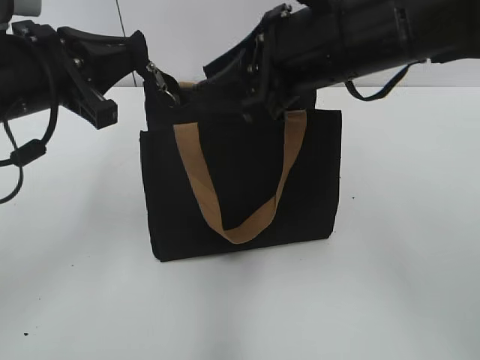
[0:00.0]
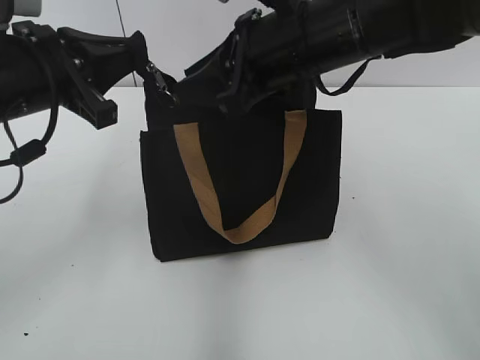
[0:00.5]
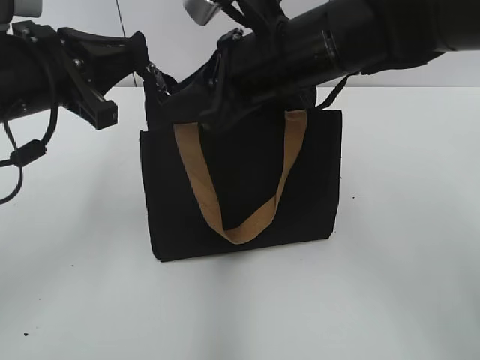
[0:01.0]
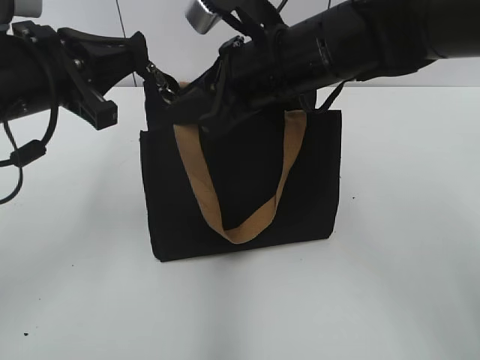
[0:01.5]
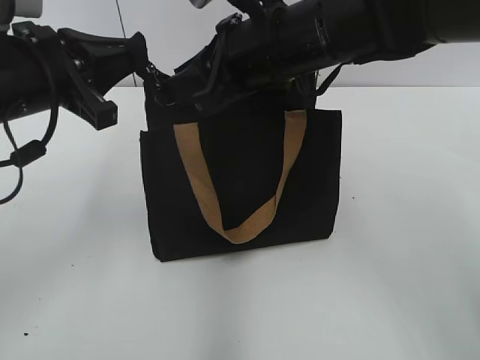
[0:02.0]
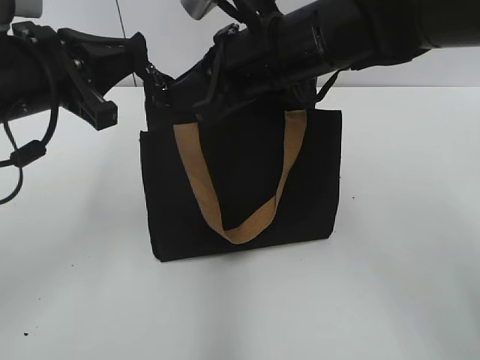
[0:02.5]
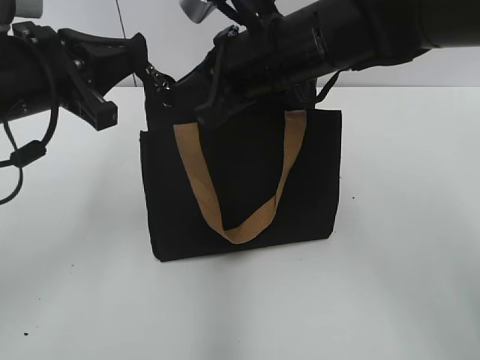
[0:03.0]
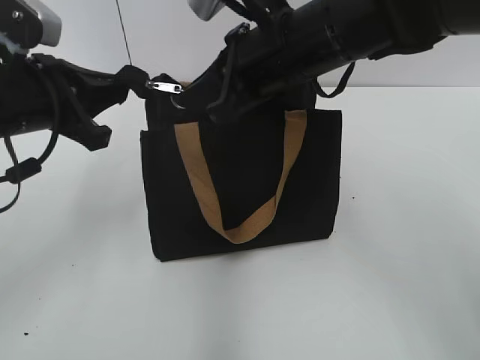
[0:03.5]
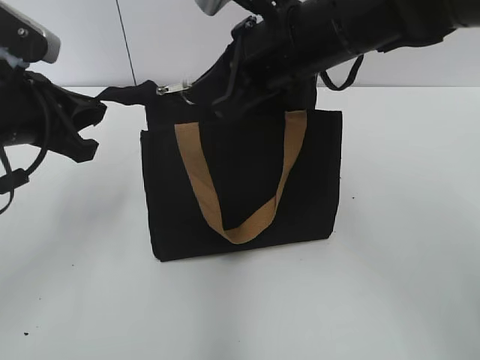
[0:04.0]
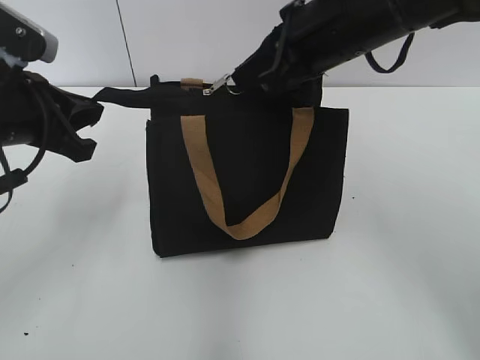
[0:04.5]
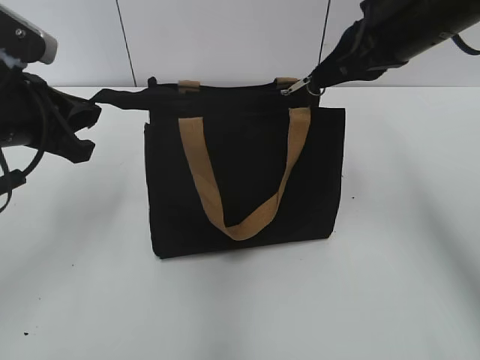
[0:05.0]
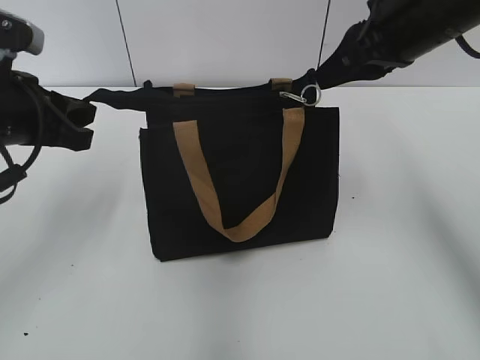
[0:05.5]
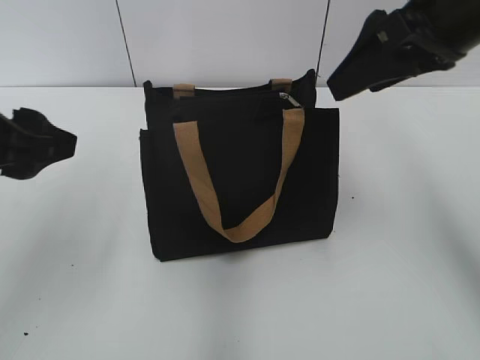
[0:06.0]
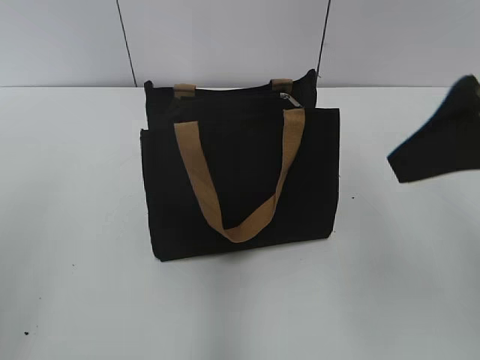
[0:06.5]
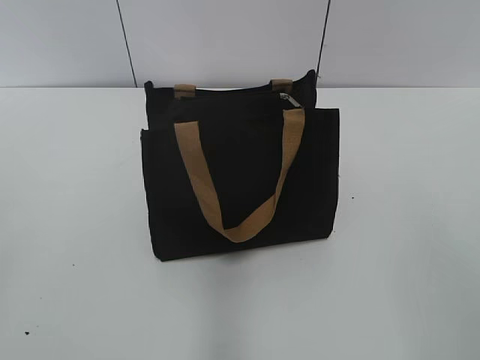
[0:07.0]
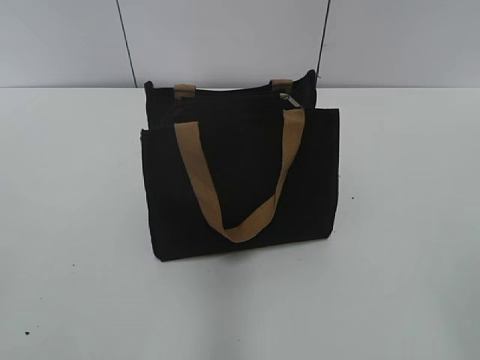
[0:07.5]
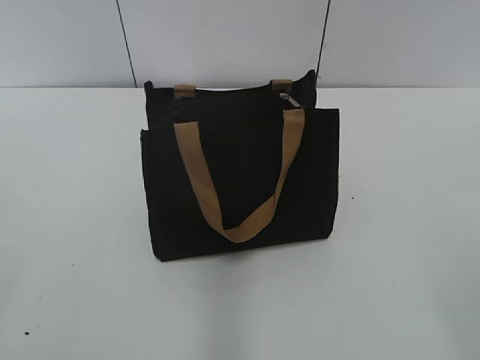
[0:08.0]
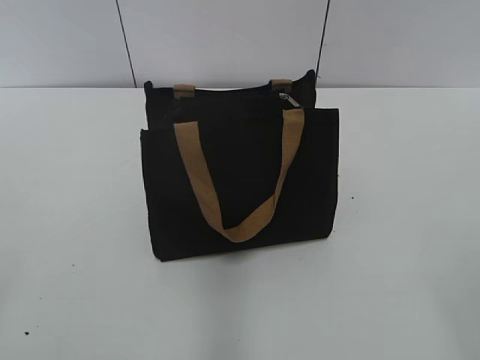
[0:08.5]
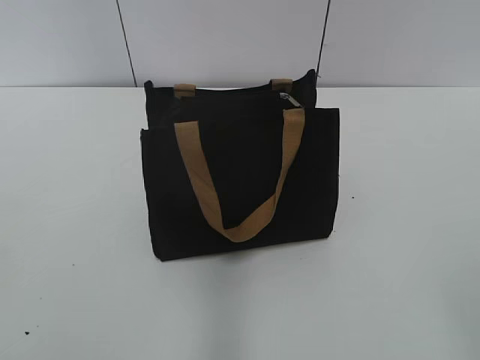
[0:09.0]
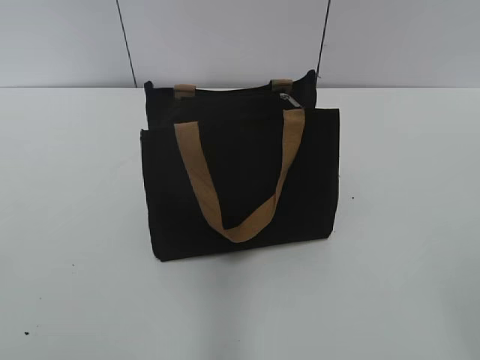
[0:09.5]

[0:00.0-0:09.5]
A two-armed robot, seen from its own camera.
Step, 0:00.0 to 0:05.5: Zip up the bag with your right hand.
0:00.0 to 0:02.0: The right gripper is displaced forward by roughly 5 cm.
0:02.0 to 0:04.0: The right gripper closes its fingers.
0:04.0 to 0:05.5: The right gripper is displaced to the right by some 10 cm.
0:05.5 to 0:07.5: The left gripper moves backward and to the left, roughly 30 cm, and opens its fingers. The right gripper moves backward, approximately 35 cm, and opens.
